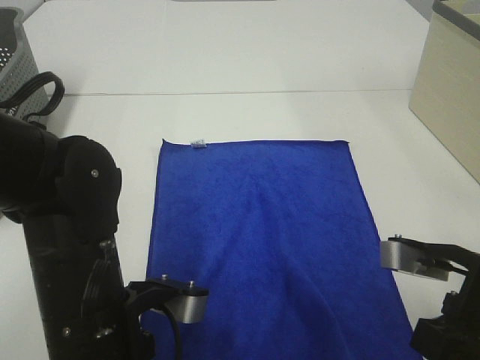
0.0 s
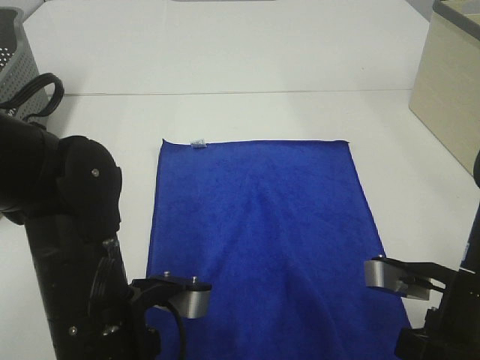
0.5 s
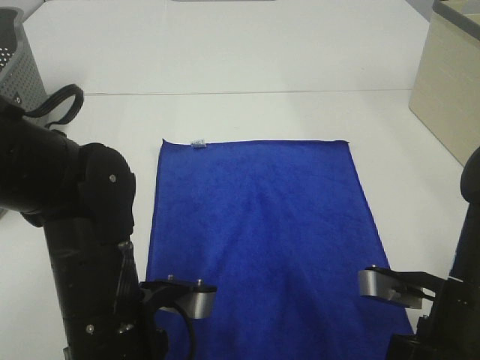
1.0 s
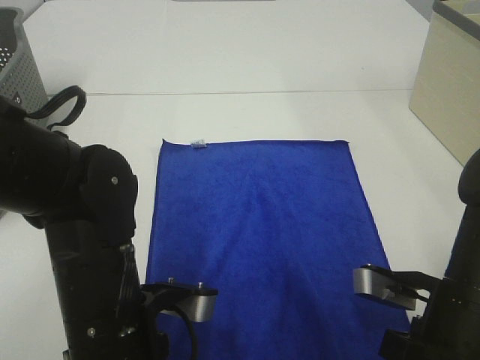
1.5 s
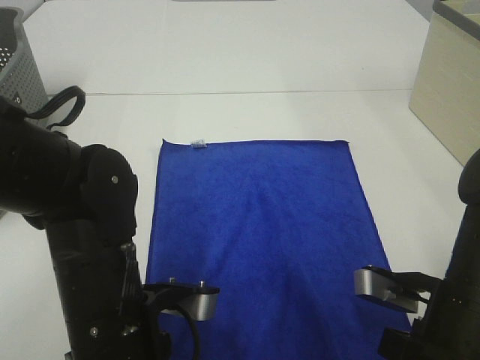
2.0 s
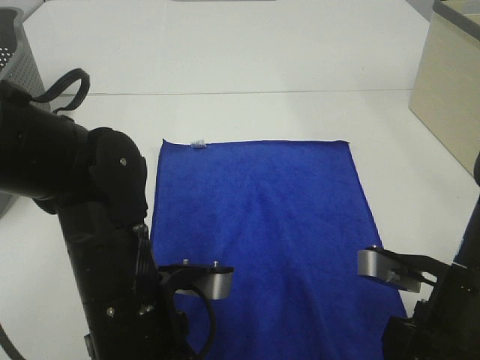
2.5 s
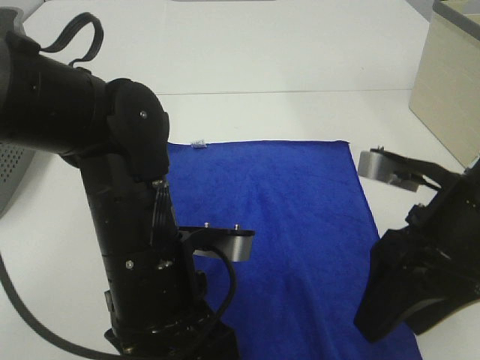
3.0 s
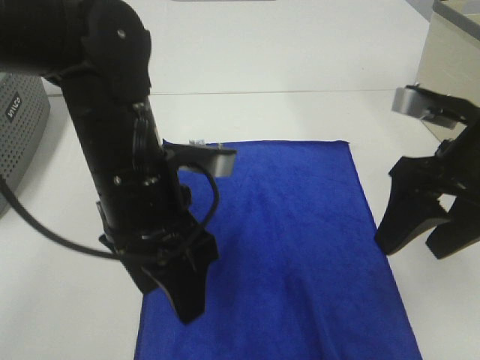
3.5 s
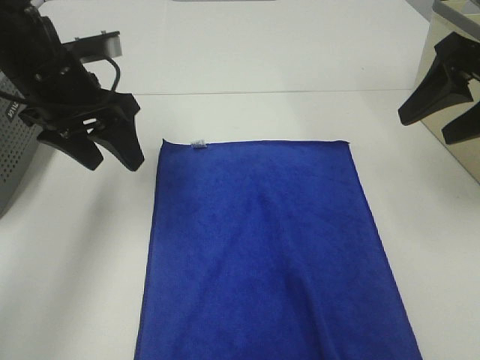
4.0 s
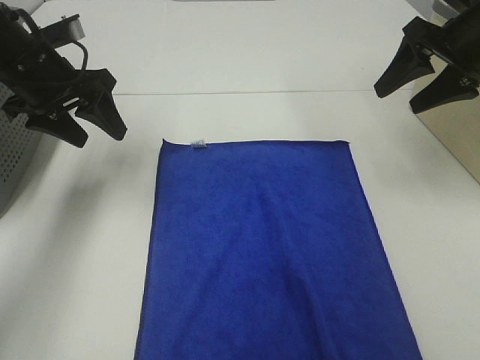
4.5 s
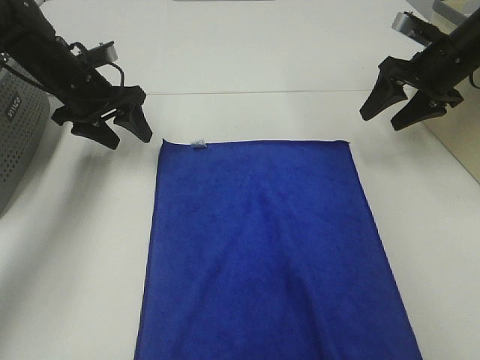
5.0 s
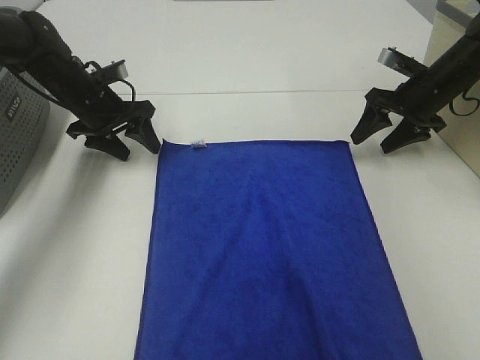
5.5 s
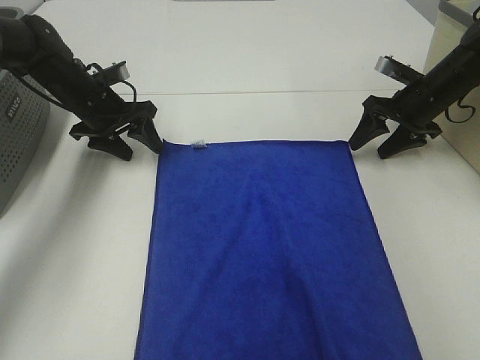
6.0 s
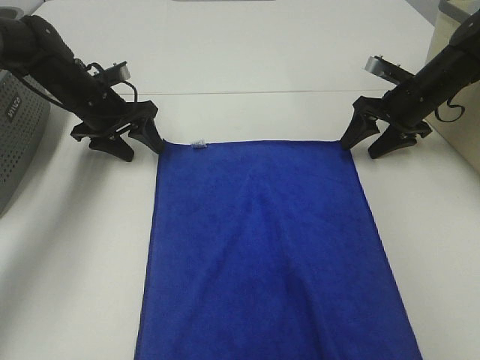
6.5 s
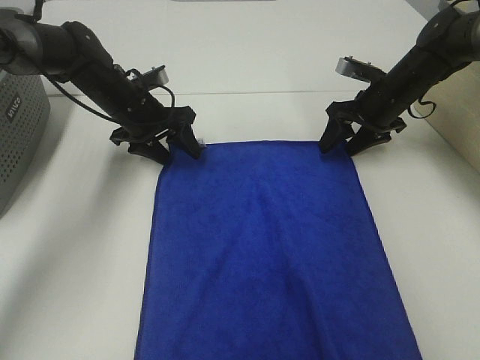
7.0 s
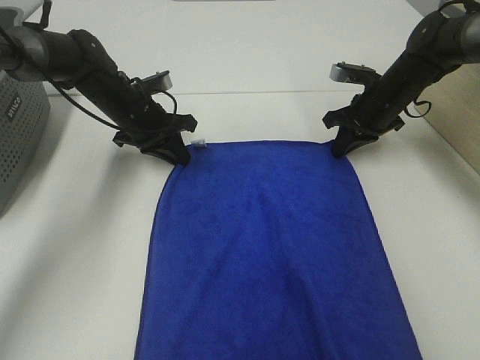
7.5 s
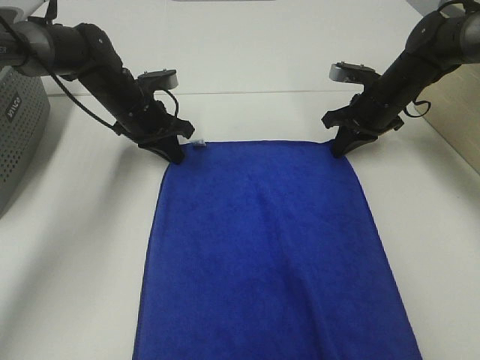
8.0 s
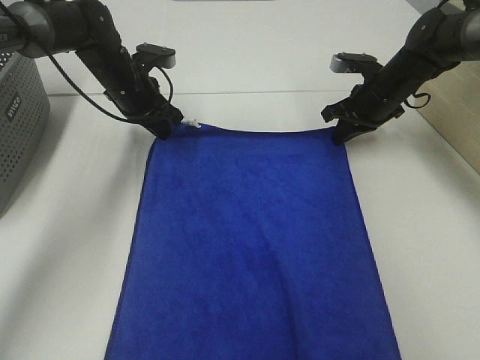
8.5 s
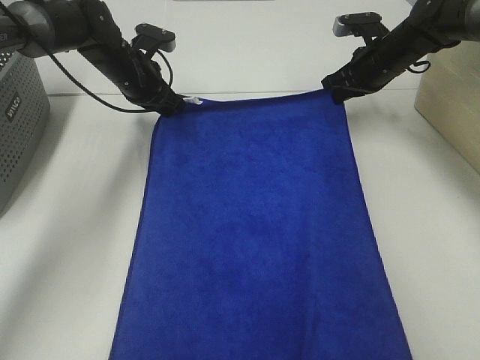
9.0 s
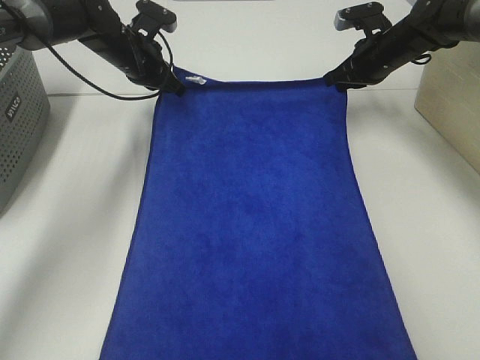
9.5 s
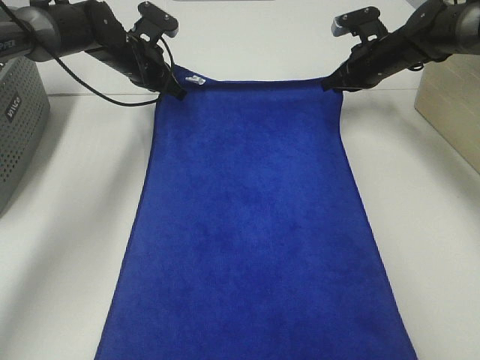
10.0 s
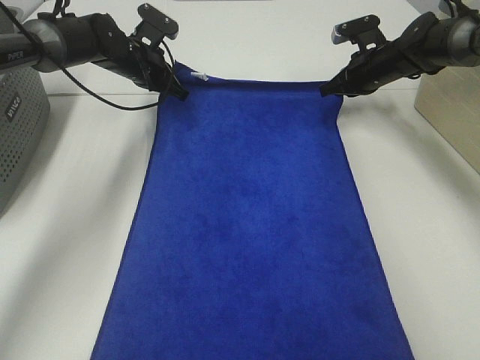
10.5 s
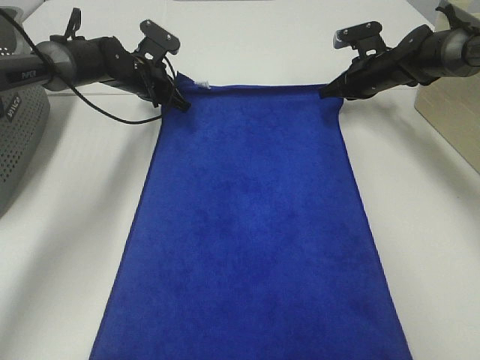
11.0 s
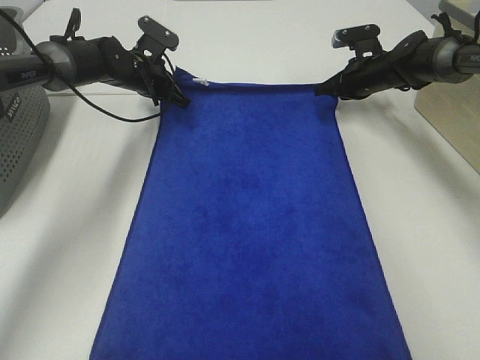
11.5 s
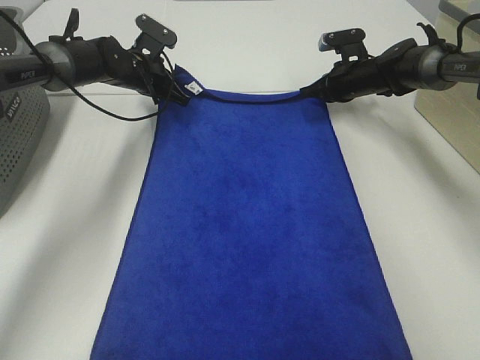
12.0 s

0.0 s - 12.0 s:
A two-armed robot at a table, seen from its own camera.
Task of the whole recording: Remove the towel and place it.
Step, 0.0 s - 7.0 s: Left hand:adjust the blue towel.
Step, 0.0 s - 7.0 s: Right hand:adjust the blue towel.
0.0 s - 2.0 s: The left gripper opens its fingers. The right gripper opens.
2.0 s - 4.0 s: The right gripper shifts some 25 cm upward, forward and to the right; the left gripper heads forward, upward and to the left, covering some 25 cm.
4.0 s - 6.0 s: The grippers both shift forward and downward by approximately 20 cm.
6.0 s - 8.0 s: The left gripper goes approximately 5 cm to the right, and closes up. The right gripper is displaced to the left by roughly 5 cm, and closes.
8.0 s - 10.0 s: Both grippers travel together forward, approximately 5 cm.
10.0 s - 12.0 s: The right gripper shifts about 5 cm downward.

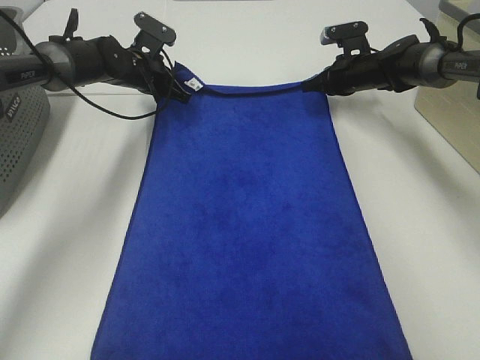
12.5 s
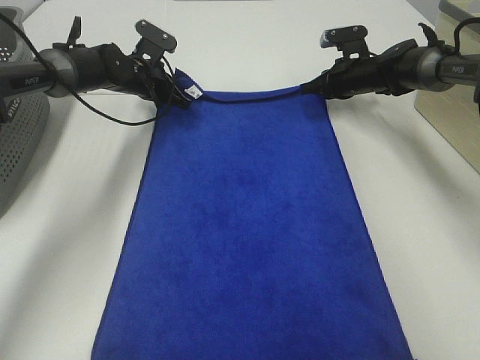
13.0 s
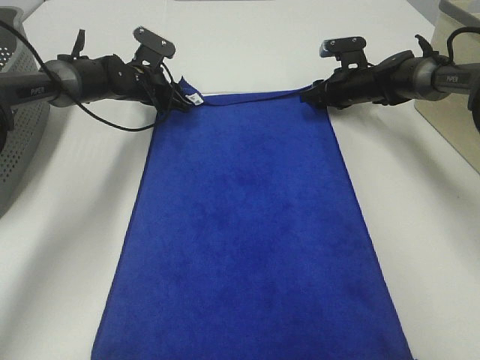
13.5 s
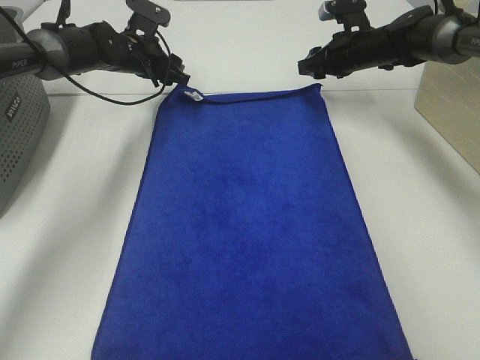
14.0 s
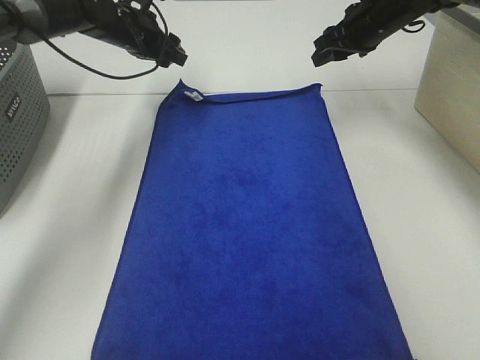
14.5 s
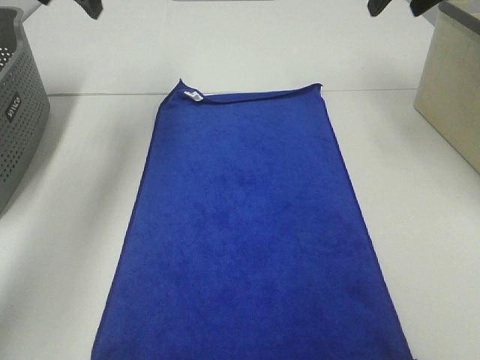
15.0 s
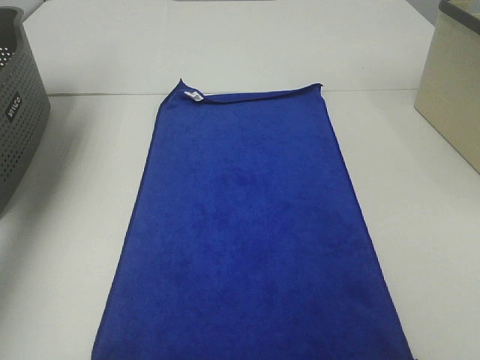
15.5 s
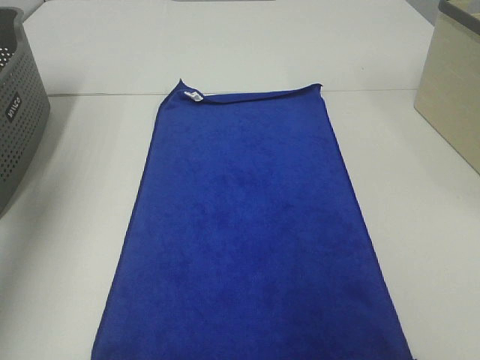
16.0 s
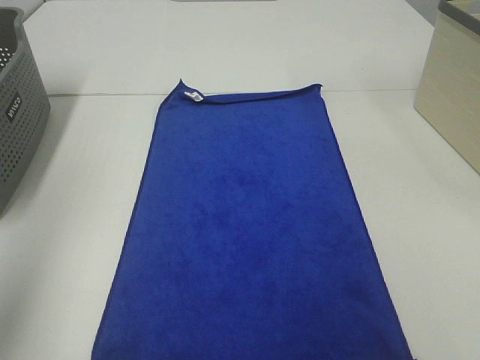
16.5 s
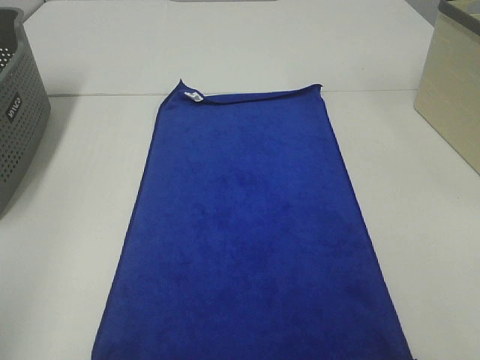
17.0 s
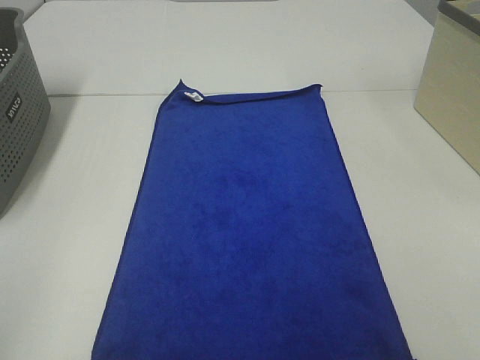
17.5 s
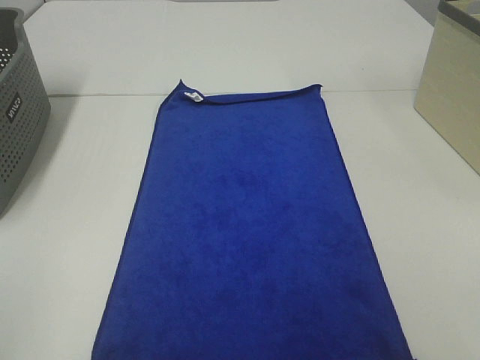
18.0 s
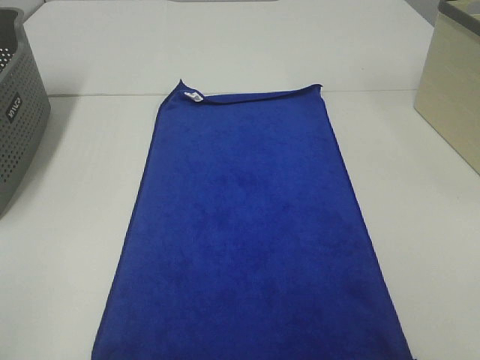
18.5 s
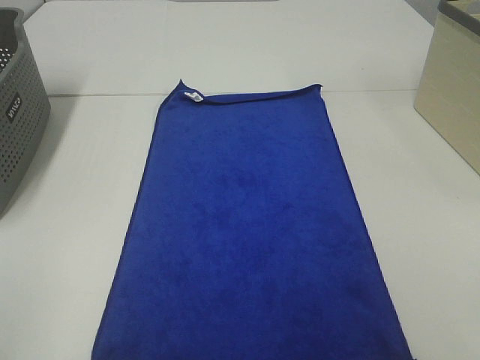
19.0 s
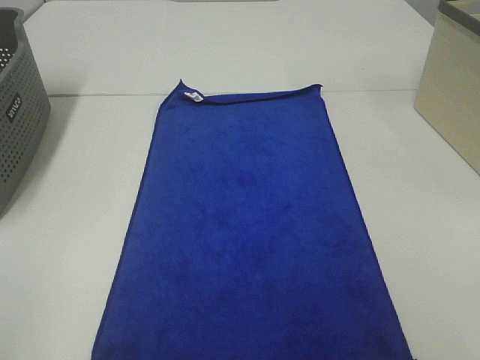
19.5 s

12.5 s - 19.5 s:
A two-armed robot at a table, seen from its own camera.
Task of the whole recording: Remove the towel and place it.
12.5 s - 14.5 s: Both grippers travel together upward, roughly 10 cm. The left gripper opens. Meanwhile the right gripper opens up.
14.5 s - 16.0 s: The left gripper goes some 40 cm backward, upward and to the left. The right gripper goes about 40 cm backward and upward.
16.0 s - 17.5 s: The left gripper is displaced backward and downward by roughly 25 cm.

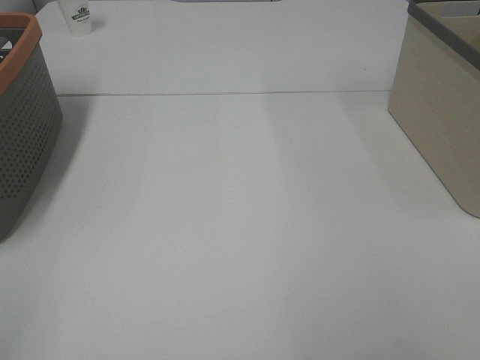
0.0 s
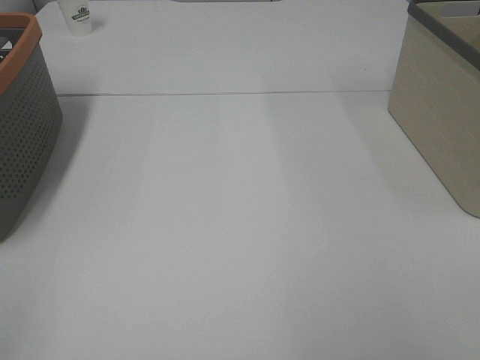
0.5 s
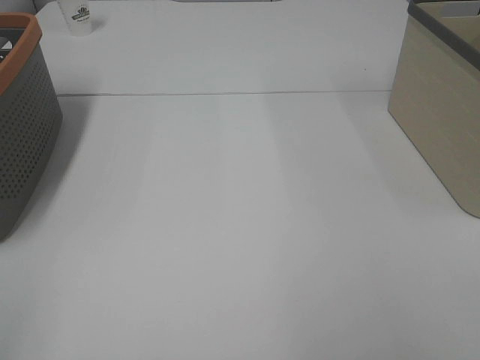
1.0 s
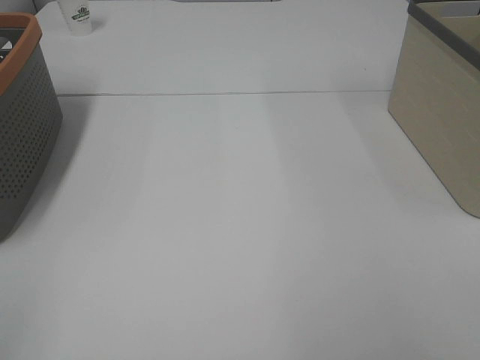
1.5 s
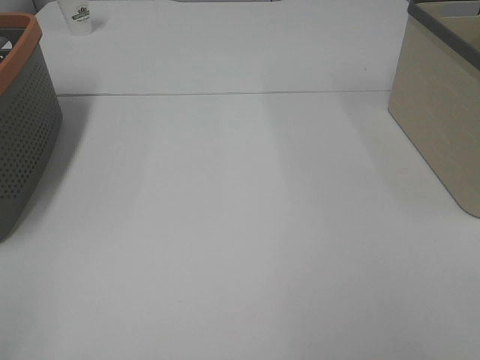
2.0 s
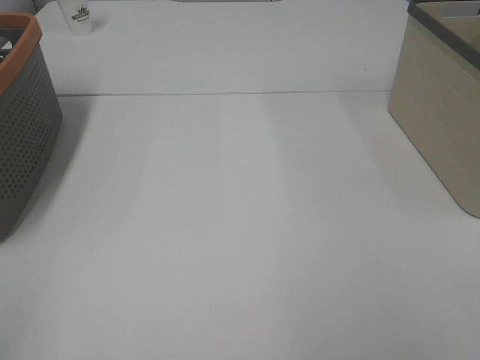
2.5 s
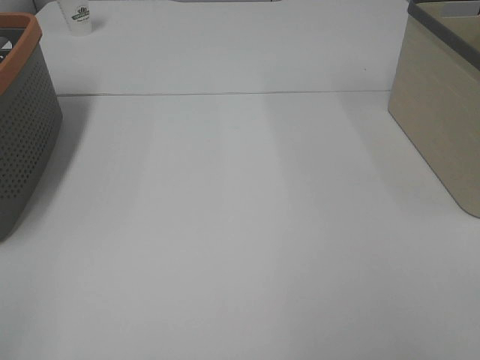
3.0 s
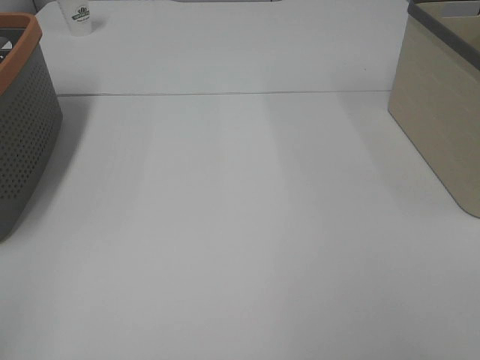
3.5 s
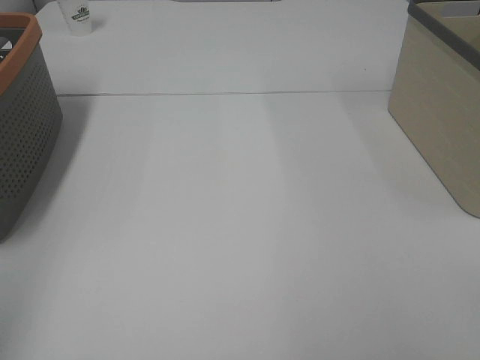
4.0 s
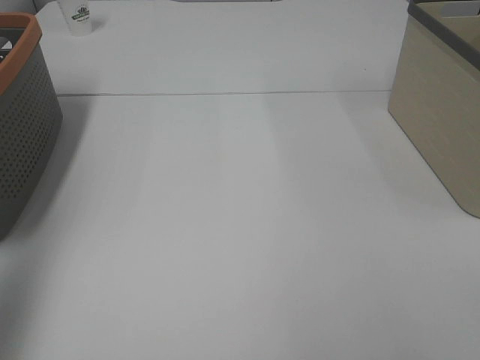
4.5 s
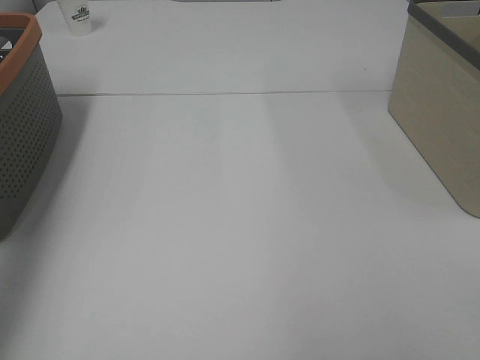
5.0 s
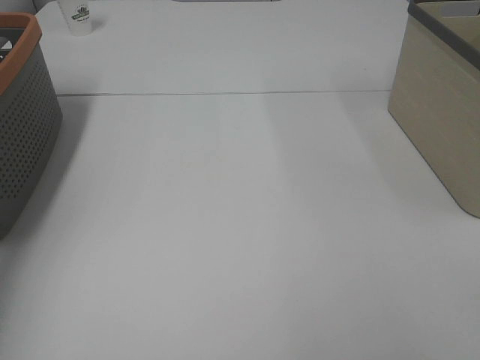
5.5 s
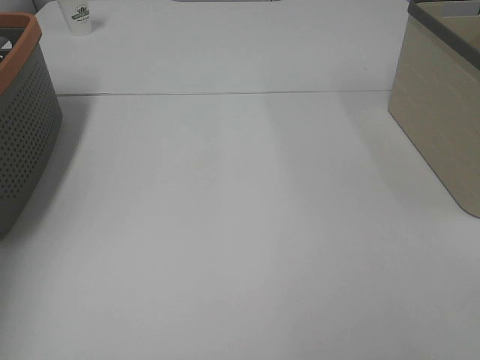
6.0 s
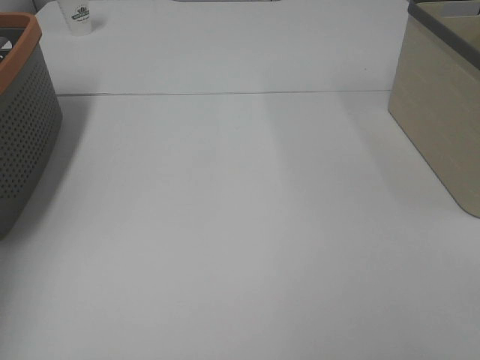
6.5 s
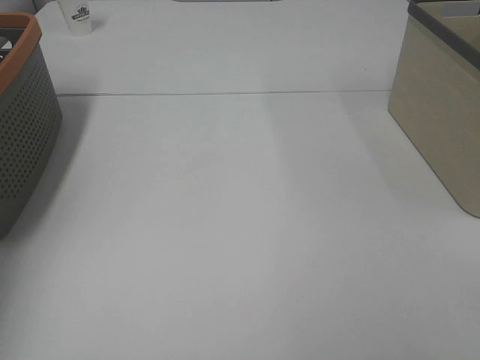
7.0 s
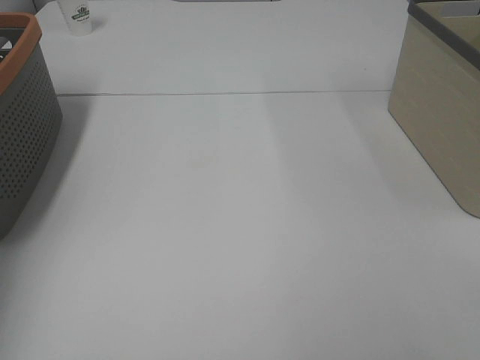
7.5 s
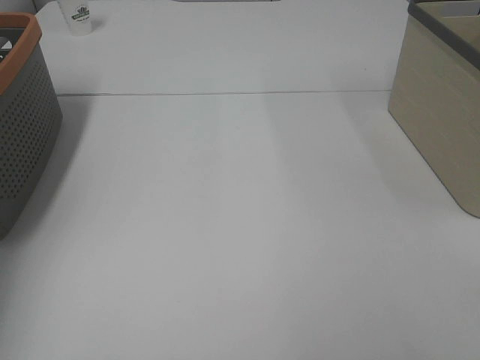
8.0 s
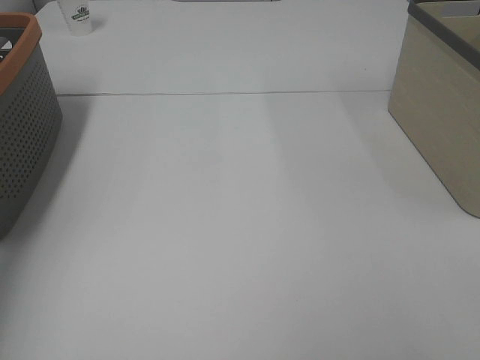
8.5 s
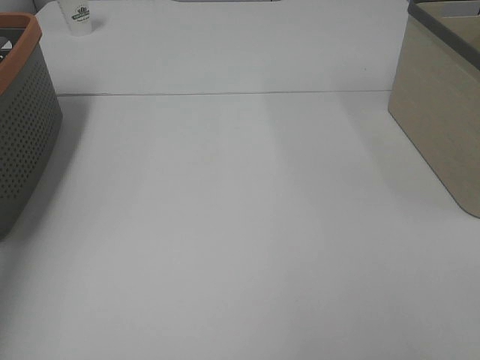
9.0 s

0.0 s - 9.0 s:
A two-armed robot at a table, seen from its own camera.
Task of the whole recording: Remove the towel and place it.
0.0 s - 2.0 s: Both grippers stay put.
2.0 s - 4.5 s: The left gripper goes roughly 20 cm forward and upward.
4.5 s - 7.0 s: The left gripper travels forward and downward by some 30 cm.
